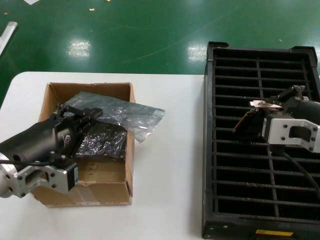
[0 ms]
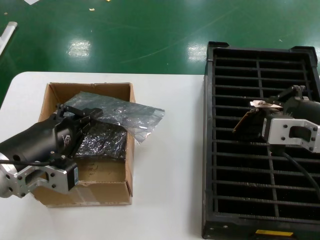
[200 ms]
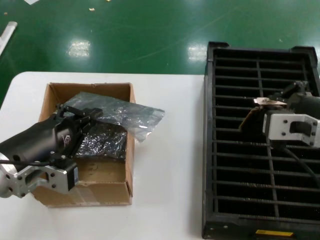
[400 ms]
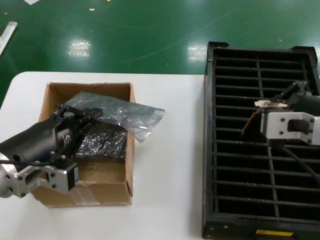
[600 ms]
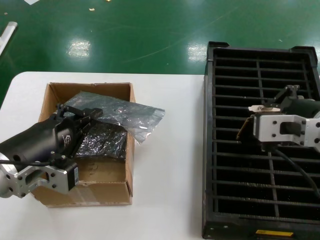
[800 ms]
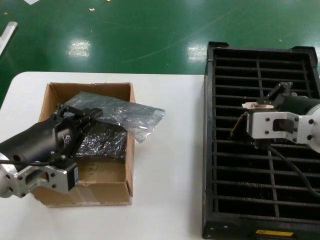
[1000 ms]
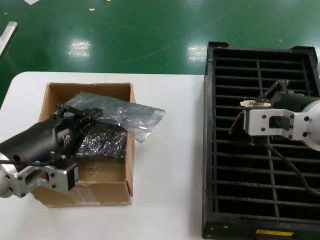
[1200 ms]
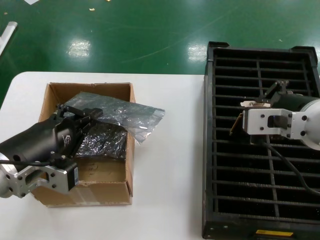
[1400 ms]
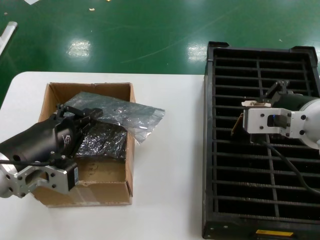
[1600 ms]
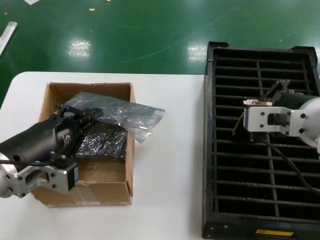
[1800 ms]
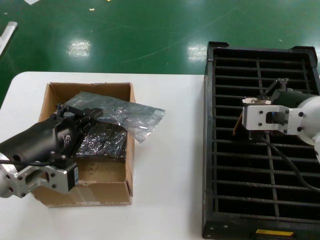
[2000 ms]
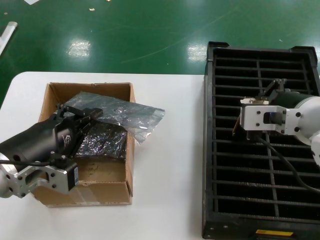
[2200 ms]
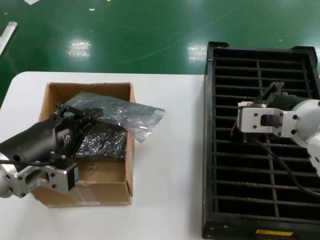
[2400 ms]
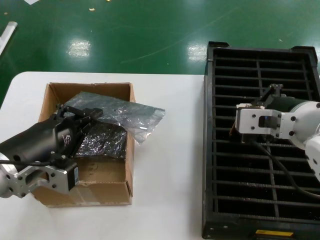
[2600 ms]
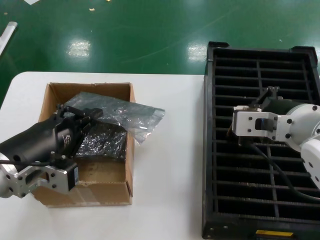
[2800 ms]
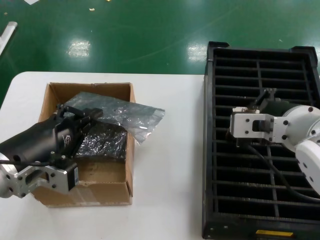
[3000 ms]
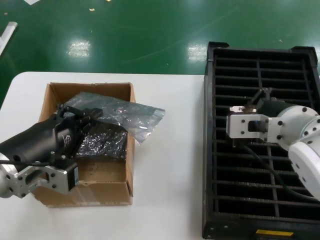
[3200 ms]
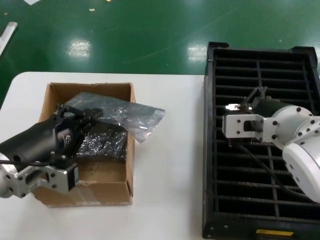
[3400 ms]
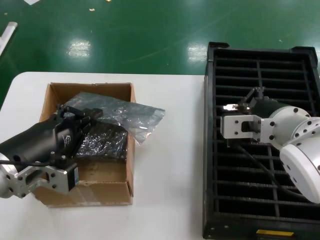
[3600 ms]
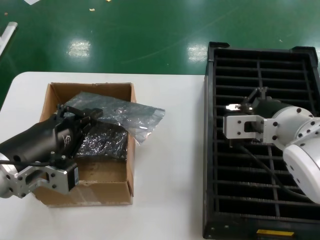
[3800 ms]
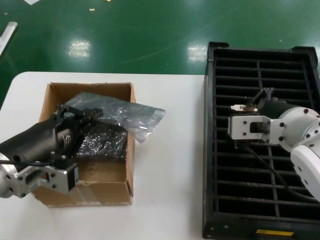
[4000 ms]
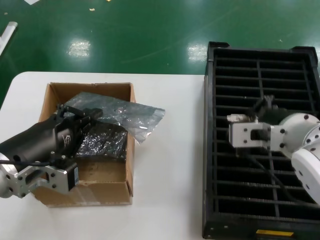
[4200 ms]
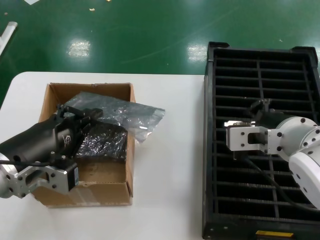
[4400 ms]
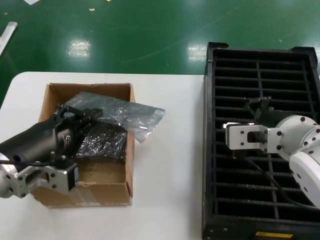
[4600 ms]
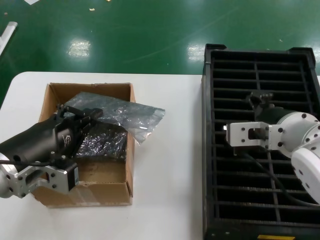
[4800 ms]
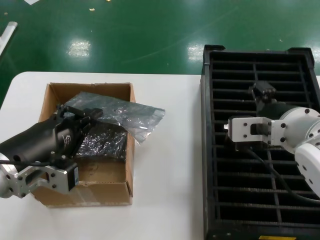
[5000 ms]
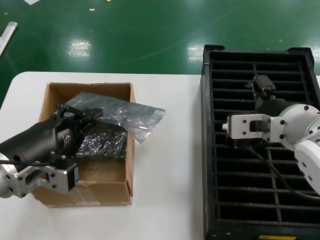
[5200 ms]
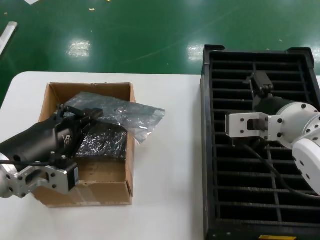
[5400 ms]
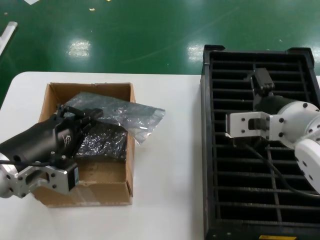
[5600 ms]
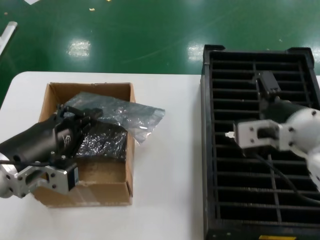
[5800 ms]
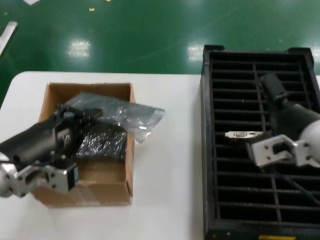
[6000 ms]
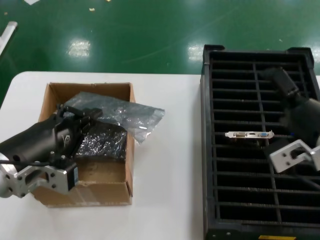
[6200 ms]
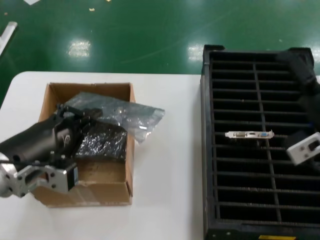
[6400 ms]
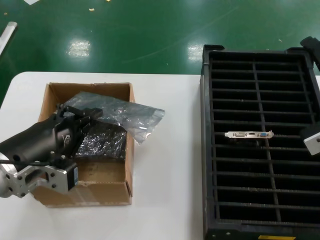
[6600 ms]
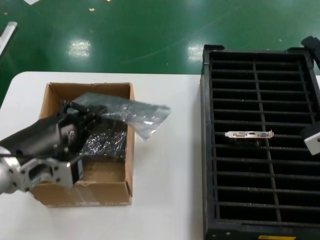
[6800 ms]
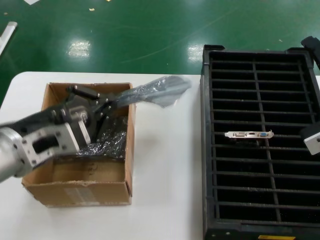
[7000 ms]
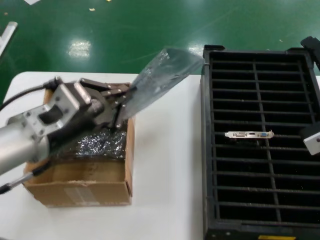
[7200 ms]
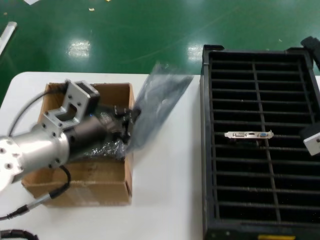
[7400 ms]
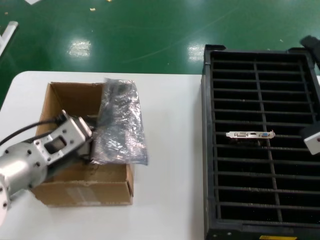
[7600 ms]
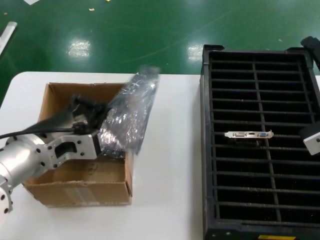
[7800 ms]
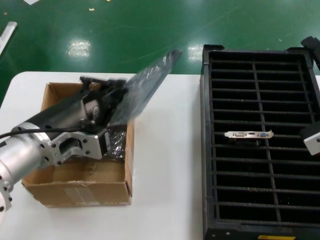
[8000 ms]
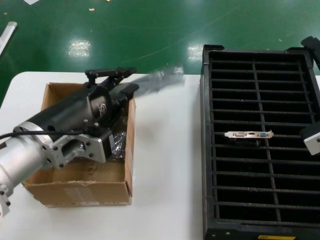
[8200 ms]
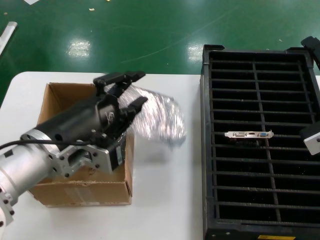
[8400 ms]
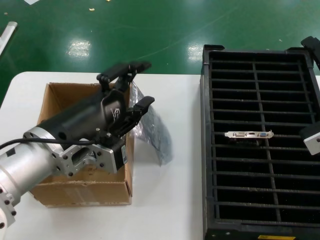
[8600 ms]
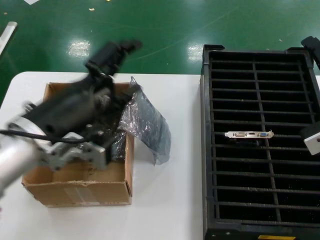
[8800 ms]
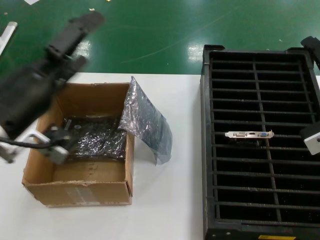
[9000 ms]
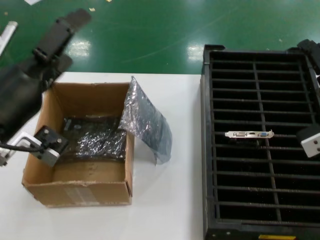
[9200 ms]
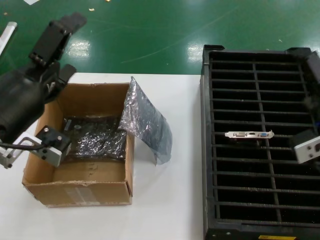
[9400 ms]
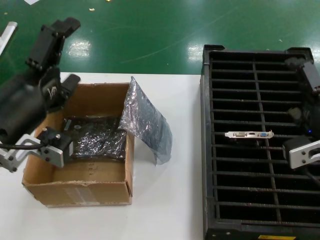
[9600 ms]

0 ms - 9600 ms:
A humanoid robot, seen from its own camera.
Task of the whole recording: take out graphics card from box remove packaging put into black container.
Step, 0 ms - 5400 ms: Place the hard disk in the hard disk enclosure.
0 ms - 1600 ms: The hands stay close to where they were, moving slightly.
1600 ms - 4800 ms: The hands make only small movements.
4800 ms - 6400 ms: The right hand heads to the right, covering about 10 cm.
6400 ms - 8000 ms: The left hand moves roughly 5 cm.
8000 ms - 9600 ms: The left hand changes place by some 5 cm.

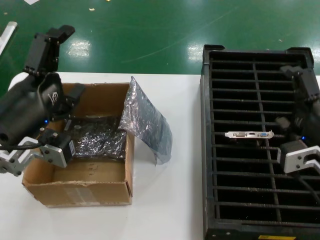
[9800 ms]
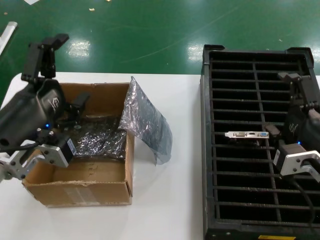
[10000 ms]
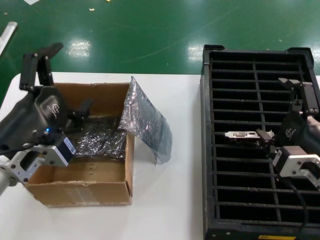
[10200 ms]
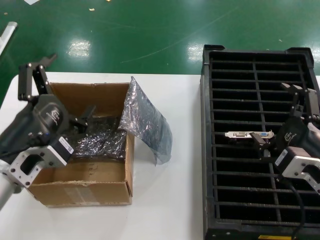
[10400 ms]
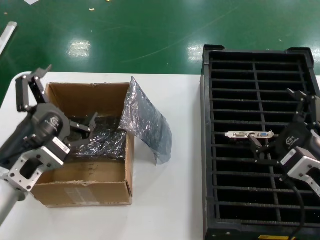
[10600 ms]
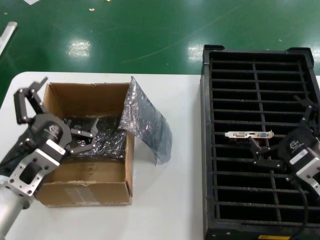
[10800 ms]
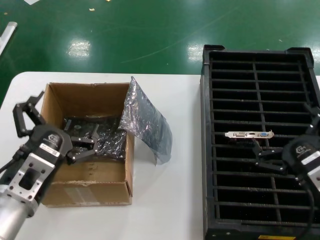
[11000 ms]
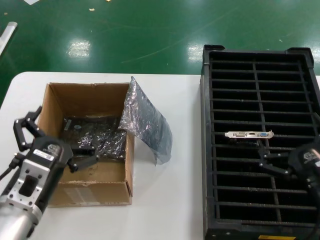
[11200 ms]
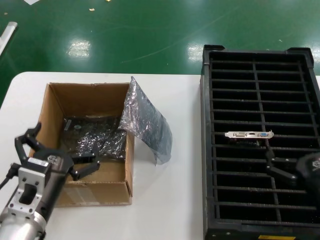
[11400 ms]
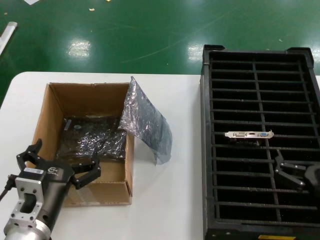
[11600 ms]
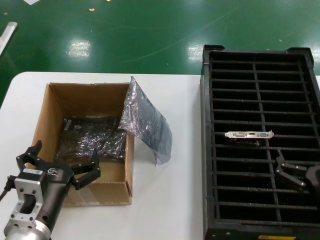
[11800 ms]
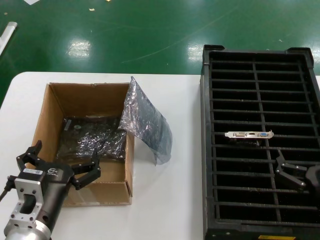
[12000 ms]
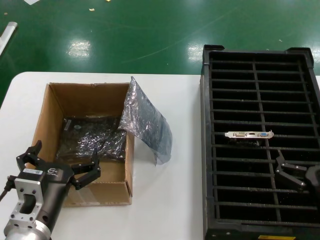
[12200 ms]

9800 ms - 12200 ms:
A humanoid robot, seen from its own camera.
Task of the whole recording: take out graphics card from box remove packaging put into black container.
9800 ms - 11000 ms: Both hands travel together downward, approximately 10 cm.
11000 ms - 12200 ms: The left hand moves downward, approximately 5 cm. The right hand changes place by about 5 cm.
